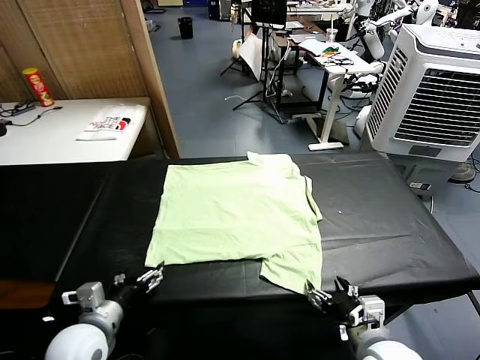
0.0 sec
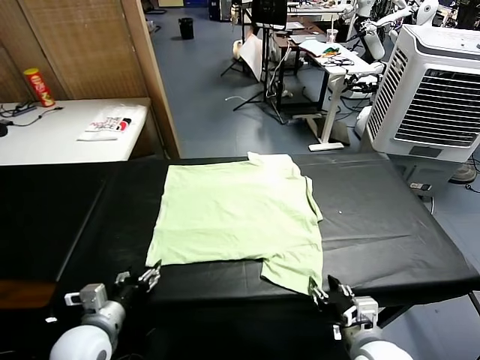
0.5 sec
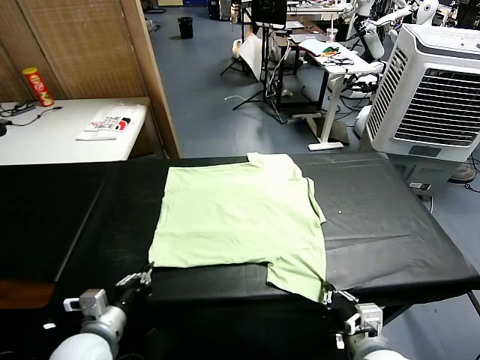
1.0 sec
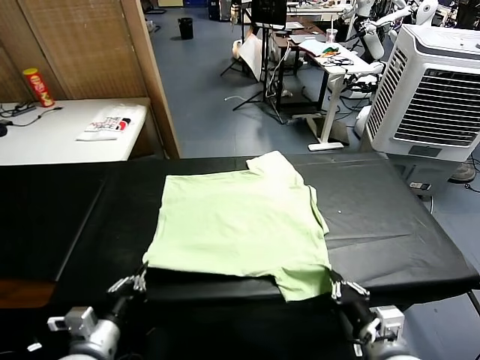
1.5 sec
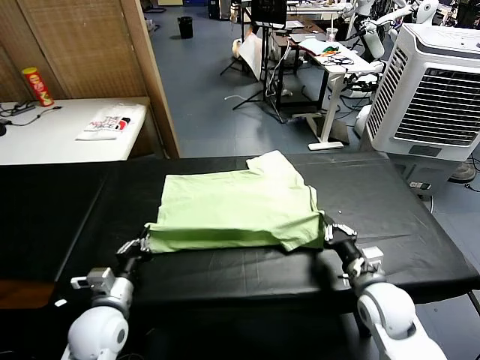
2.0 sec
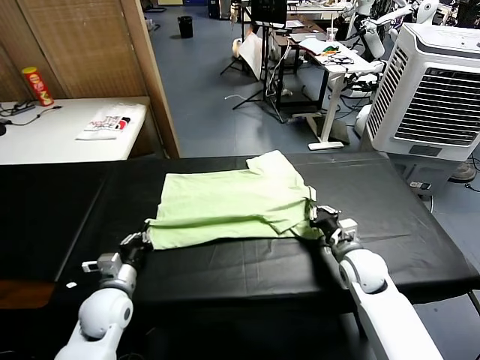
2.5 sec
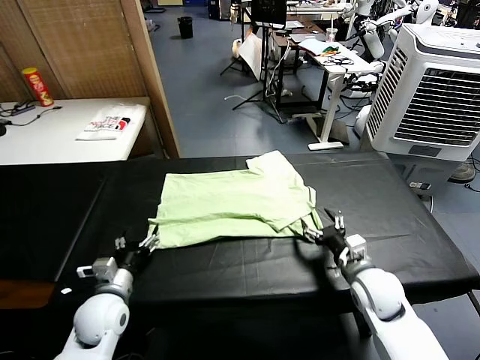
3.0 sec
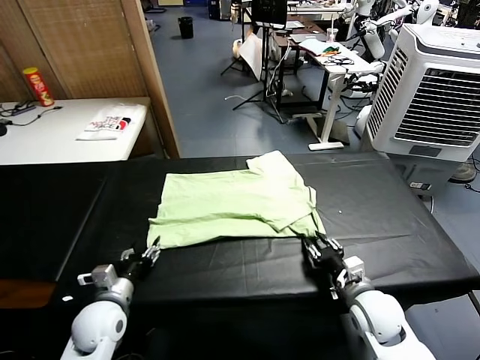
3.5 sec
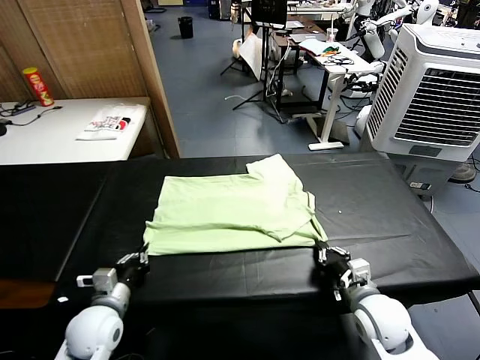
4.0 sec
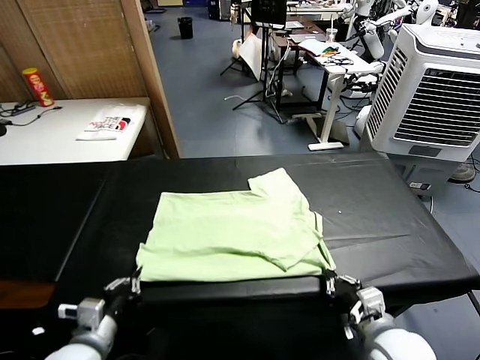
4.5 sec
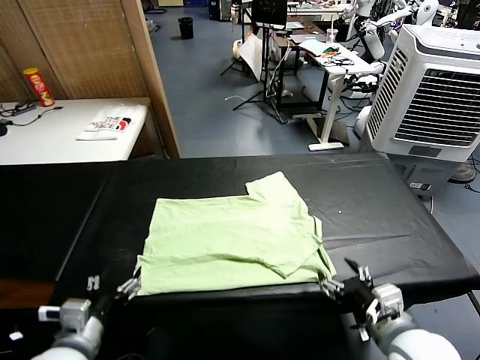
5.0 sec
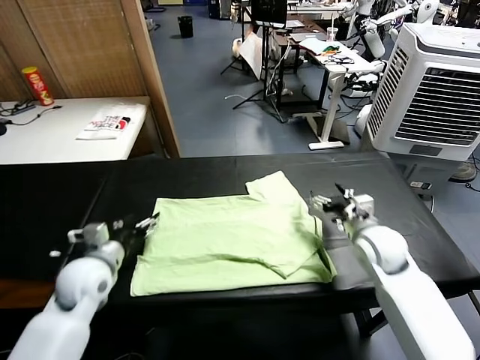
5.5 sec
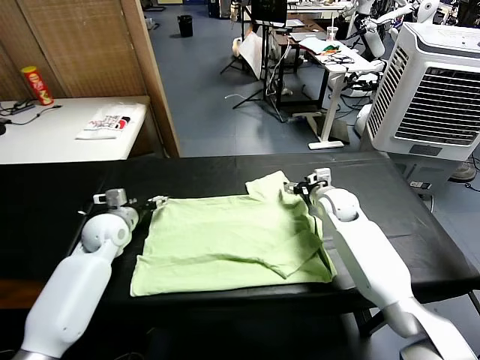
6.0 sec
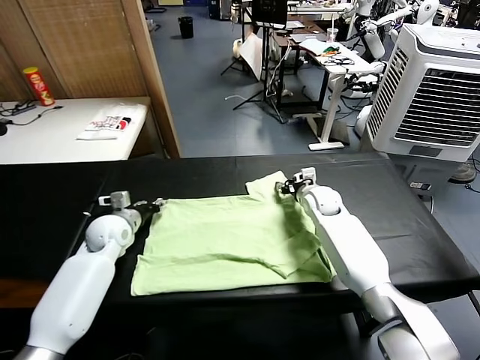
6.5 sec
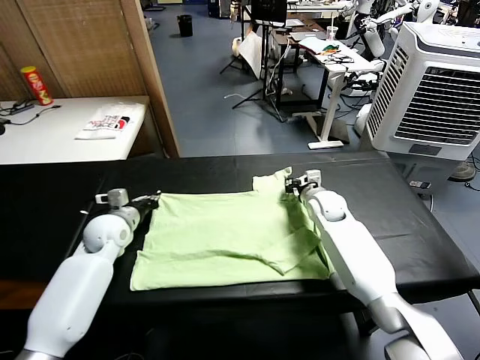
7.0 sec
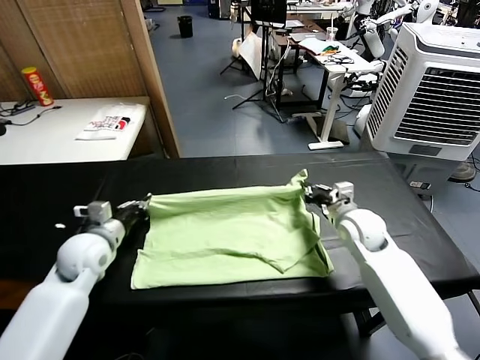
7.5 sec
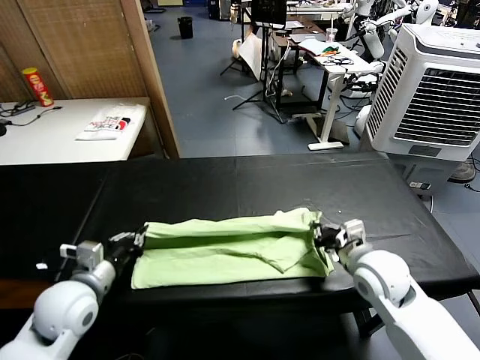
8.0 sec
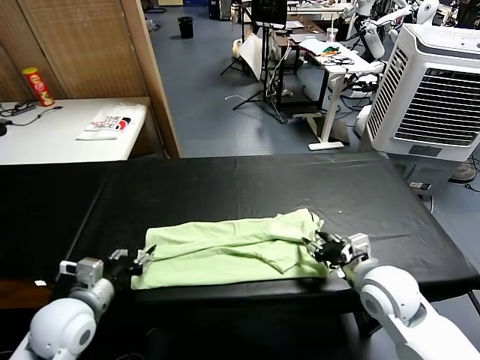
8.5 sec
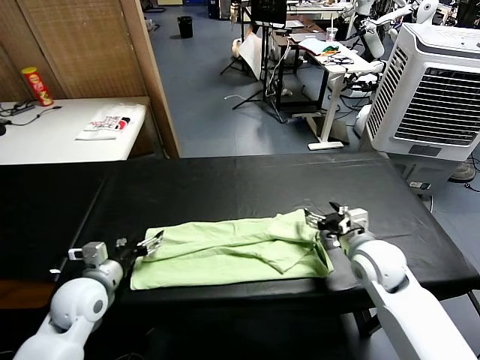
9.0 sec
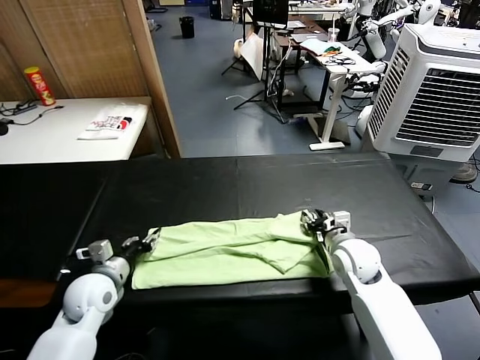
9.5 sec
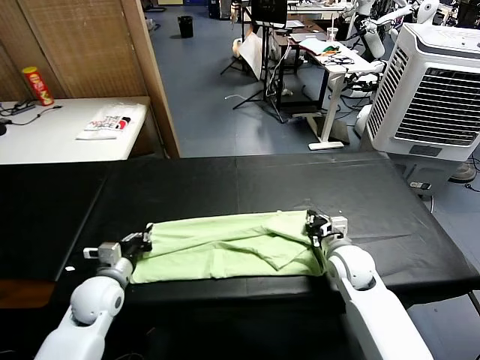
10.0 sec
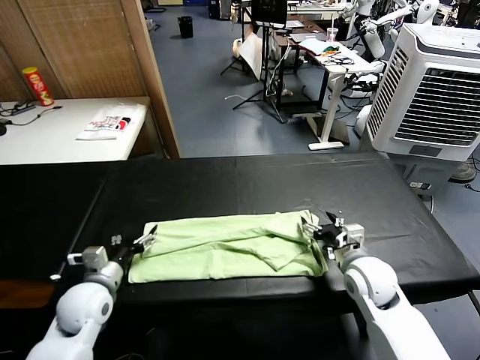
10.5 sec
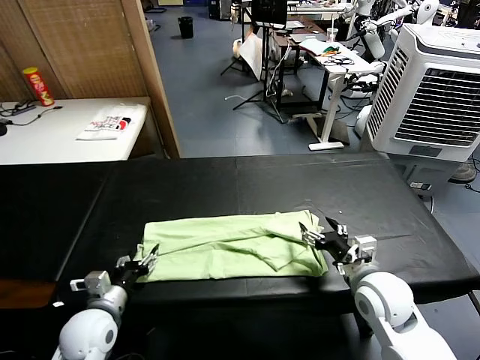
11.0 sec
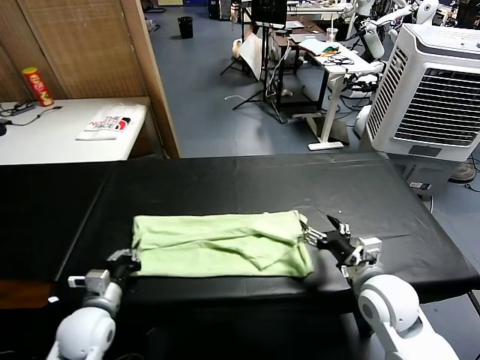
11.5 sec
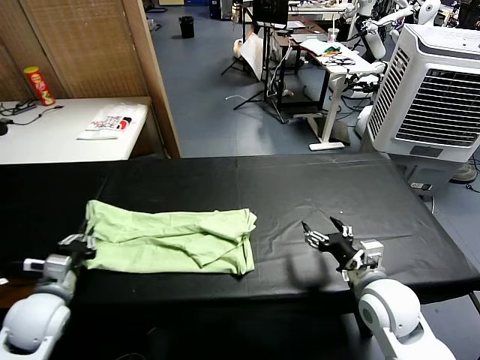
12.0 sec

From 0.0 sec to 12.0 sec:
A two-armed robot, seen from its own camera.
Task of the whole recording: fold and organize the clothes.
Step, from 0.0 sec to 0.5 sec: use both grippers simultaneously to clamp the lower edge of the clothing fabric.
Step, from 1.0 sec to 3.0 sec: use both grippers to drag the lower edge of the fabric forward and fold it over the upper edge.
Step, from 3.5 sec to 4.5 sec: Drag the clothes downward with both gripper.
Step, from 5.0 sec to 6.5 sec: use both grippers simultaneously to clamp the upper edge of the clothing fabric.
Step, from 7.0 sec to 8.5 sec: use both grippers to drag the upper edge of the fabric backward and fold it over the lower edge.
Step, from 9.0 sec to 11.0 sec: use the left gripper to clamp the left edge of the fabric.
From 2.0 sec to 4.0 sec: The left gripper opens, then closes once more; the right gripper moves backward, about 10 cm, and opens, then closes once more.
From 4.0 sec to 6.0 sec: The left gripper is displaced forward by some 20 cm, and opens up, while the right gripper is displaced forward by roughly 30 cm, and opens its fingers.
From 6.0 sec to 8.0 sec: The grippers both shift backward by about 20 cm. The left gripper closes; the right gripper closes up.
From 8.0 sec to 10.0 sec: The right gripper heads forward and downward, covering approximately 10 cm, and opens, then closes once more, while the left gripper goes some 10 cm downward and forward, and opens and closes again.
From 10.0 sec to 12.0 sec: The right gripper is displaced backward and upward by approximately 10 cm, and opens its fingers. The left gripper is displaced to the left, backward and upward by approximately 10 cm, and opens, then closes once more.

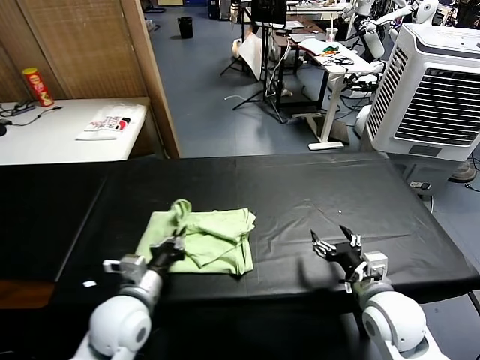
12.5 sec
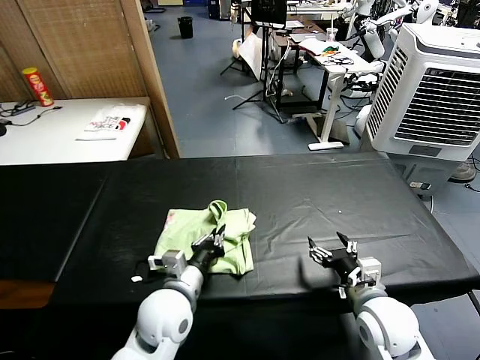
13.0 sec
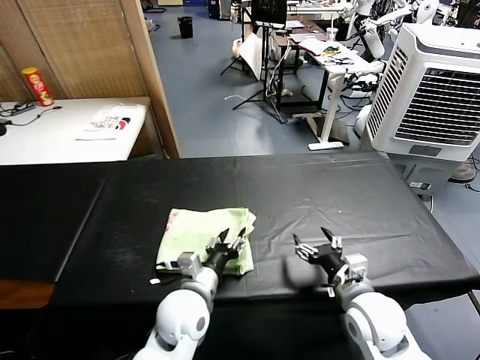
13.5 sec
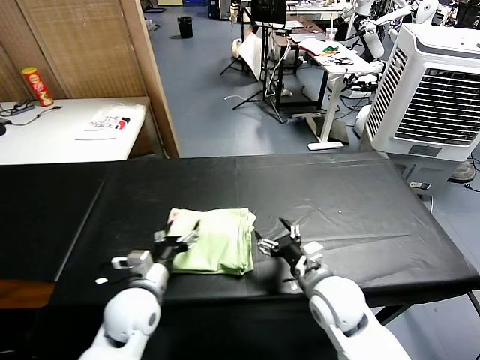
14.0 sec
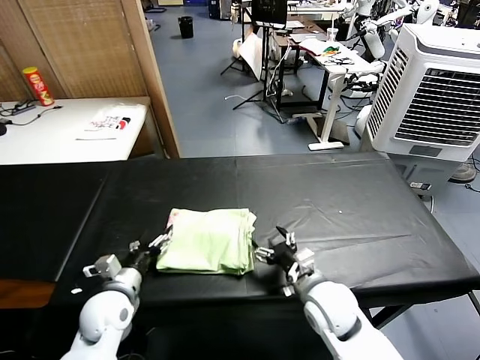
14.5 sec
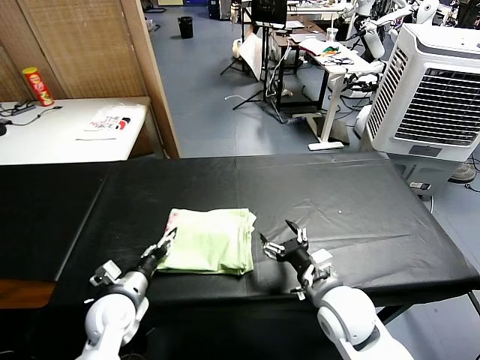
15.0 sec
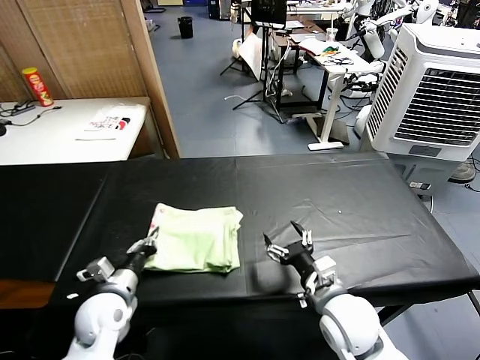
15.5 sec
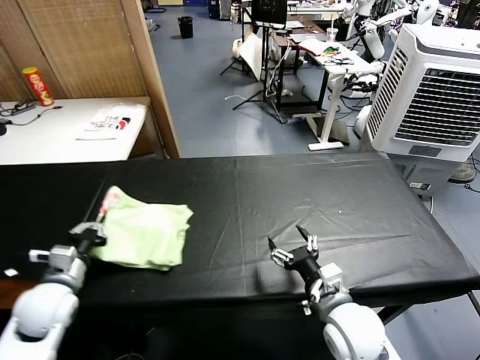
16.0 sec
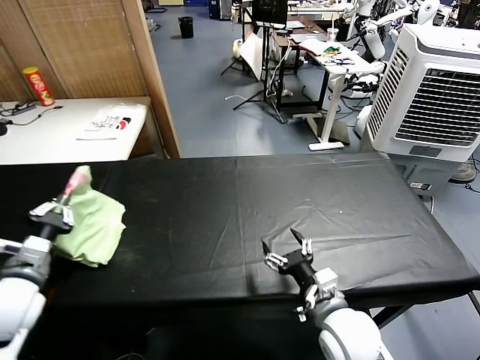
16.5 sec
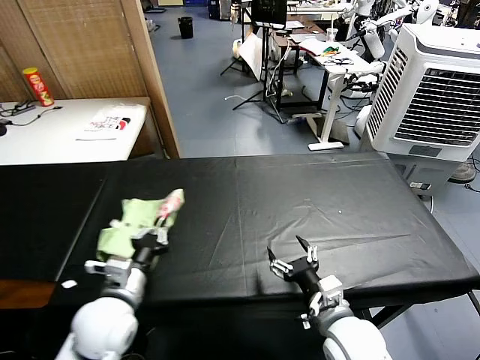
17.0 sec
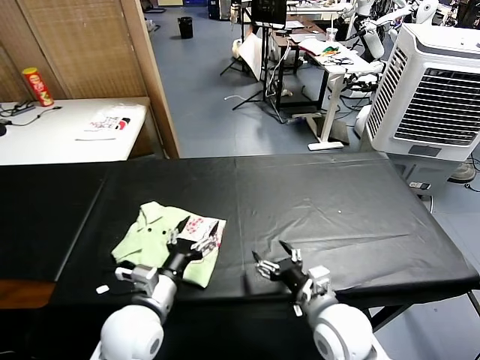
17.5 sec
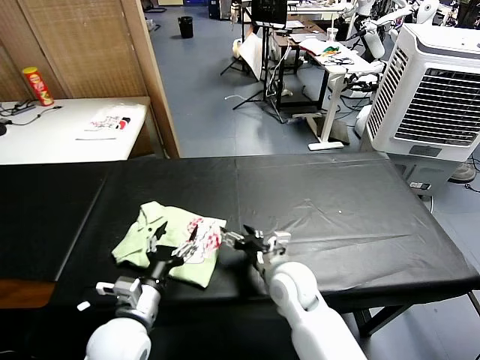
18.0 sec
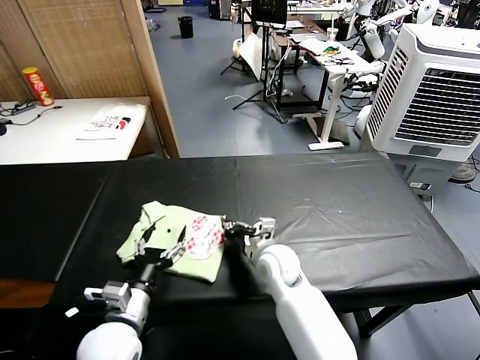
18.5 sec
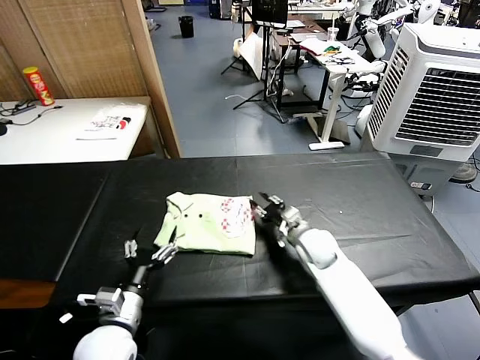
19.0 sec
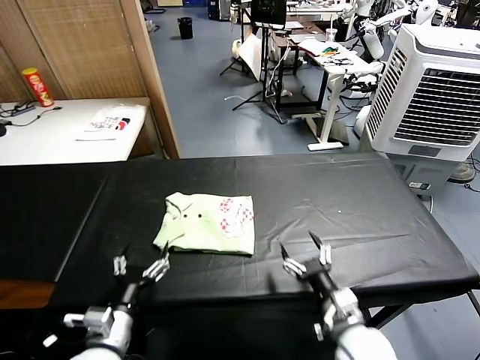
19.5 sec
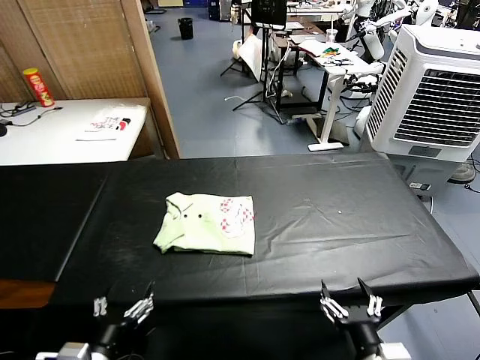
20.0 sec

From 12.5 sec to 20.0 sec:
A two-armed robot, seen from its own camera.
Task of the whole recording: fold and organize the clothes.
Step, from 14.0 sec to 17.0 sec: Flip the folded clothes over with left gripper.
Step, from 18.0 sec to 19.0 sec: Drag the clothes to the center of the table.
From 12.5 sec to 14.5 sec: The left gripper is displaced to the left and downward by roughly 10 cm, and opens; the right gripper shifts some 10 cm to the left.
From 14.5 sec to 16.5 sec: The left gripper heads upward and to the left, covering some 15 cm, and closes its fingers. The right gripper travels backward by roughly 5 cm.
From 16.5 sec to 18.0 sec: The left gripper travels to the right and downward by about 20 cm, and opens its fingers, while the right gripper goes approximately 15 cm forward and to the left.
From 18.0 sec to 20.0 sec: The left gripper travels backward by some 10 cm; the right gripper is displaced backward and to the right by roughly 25 cm, and closes, then opens again.
